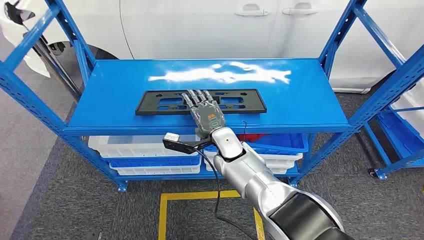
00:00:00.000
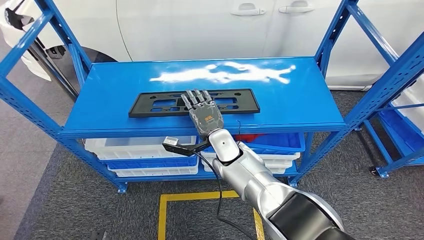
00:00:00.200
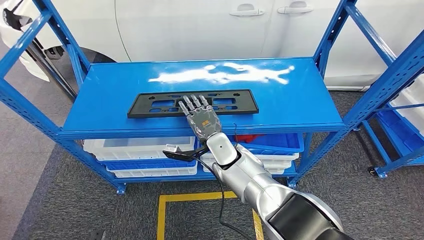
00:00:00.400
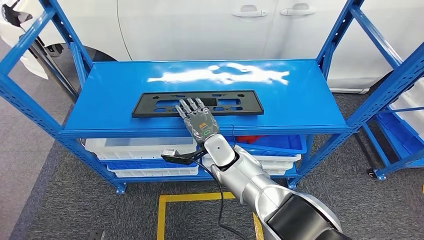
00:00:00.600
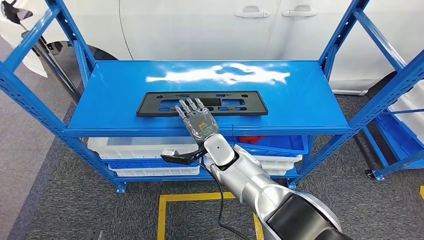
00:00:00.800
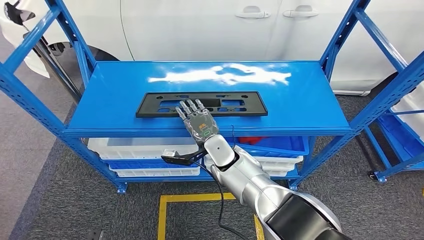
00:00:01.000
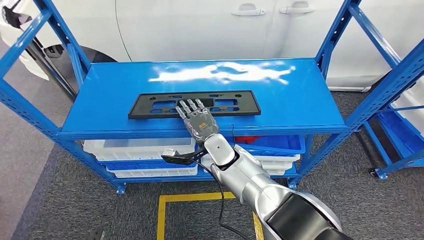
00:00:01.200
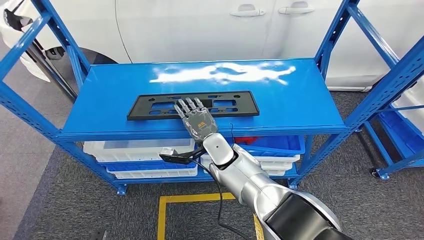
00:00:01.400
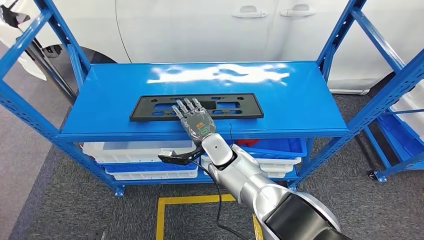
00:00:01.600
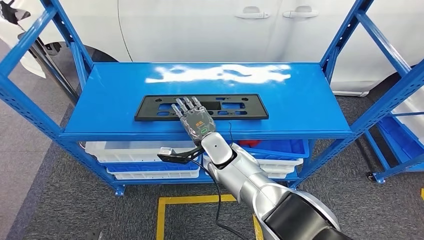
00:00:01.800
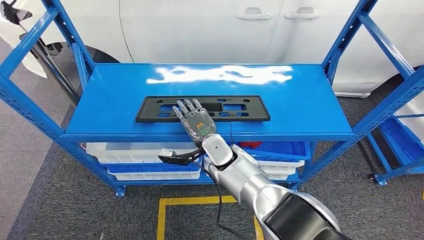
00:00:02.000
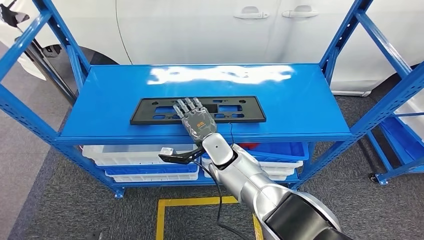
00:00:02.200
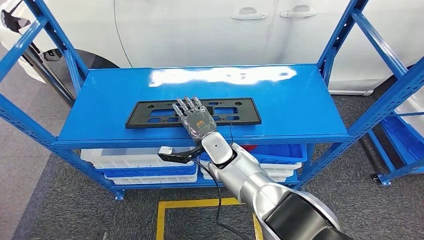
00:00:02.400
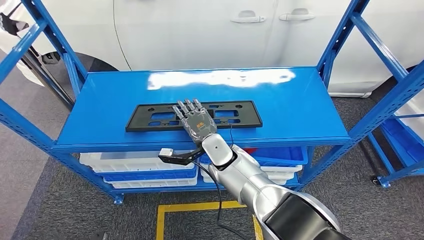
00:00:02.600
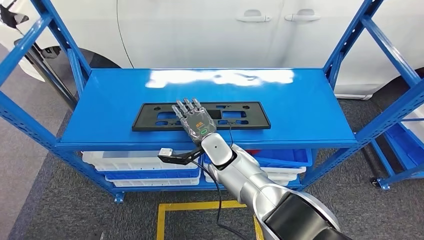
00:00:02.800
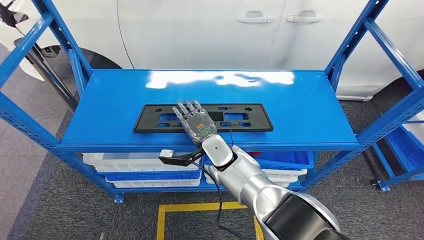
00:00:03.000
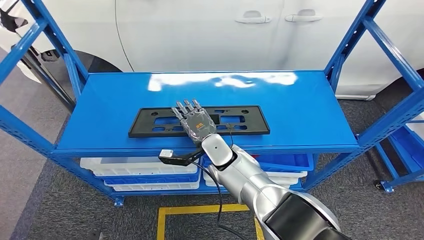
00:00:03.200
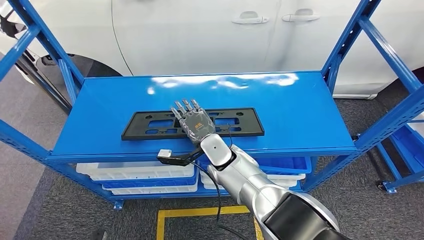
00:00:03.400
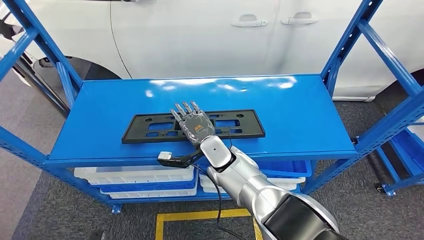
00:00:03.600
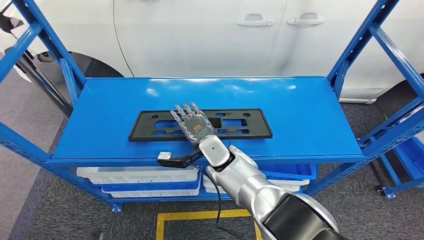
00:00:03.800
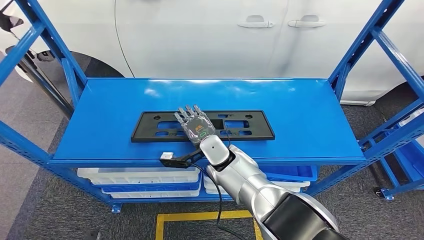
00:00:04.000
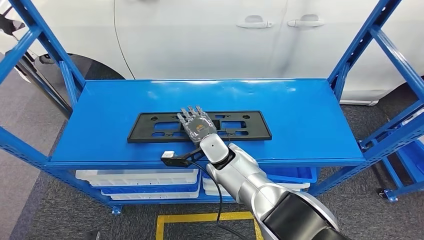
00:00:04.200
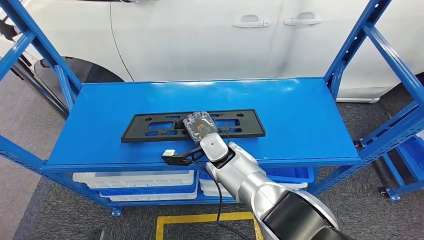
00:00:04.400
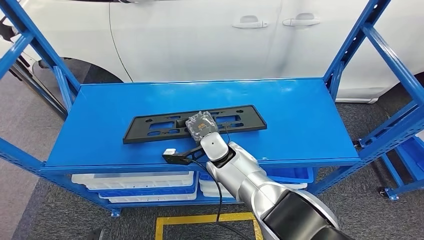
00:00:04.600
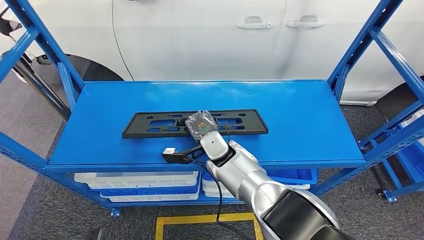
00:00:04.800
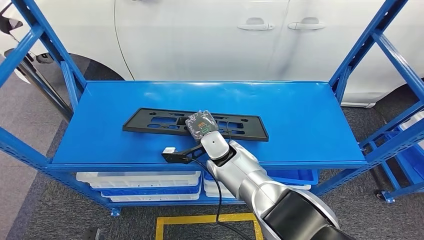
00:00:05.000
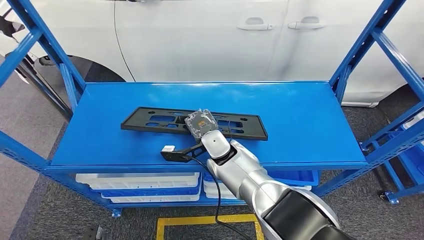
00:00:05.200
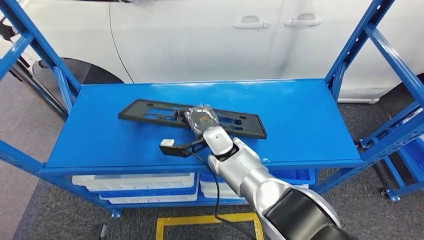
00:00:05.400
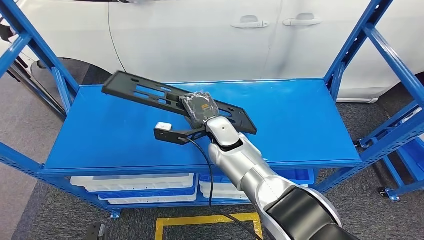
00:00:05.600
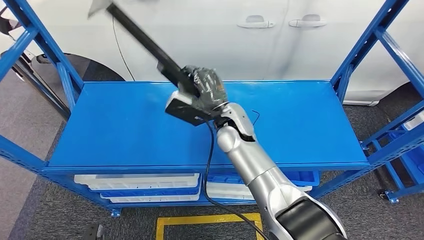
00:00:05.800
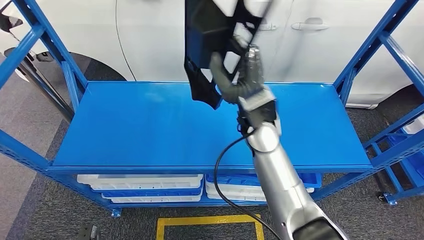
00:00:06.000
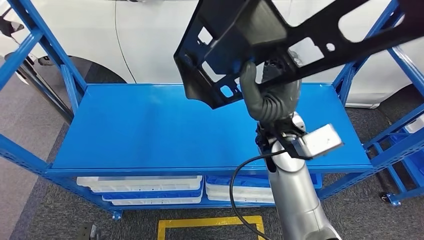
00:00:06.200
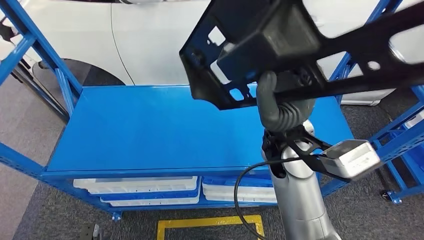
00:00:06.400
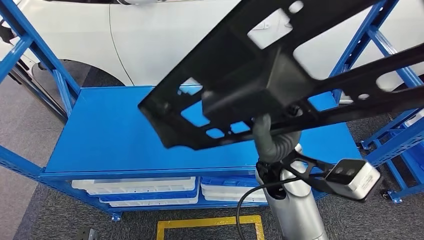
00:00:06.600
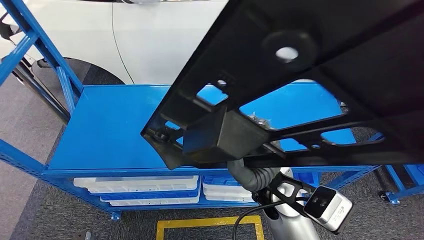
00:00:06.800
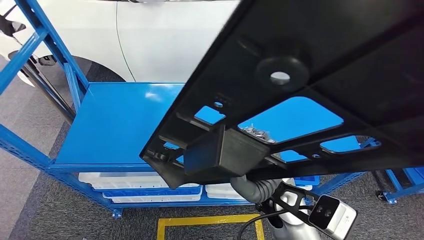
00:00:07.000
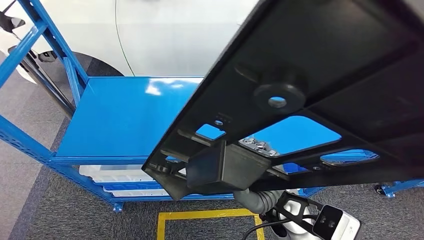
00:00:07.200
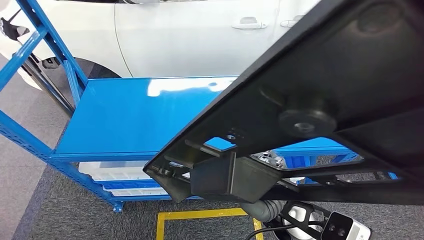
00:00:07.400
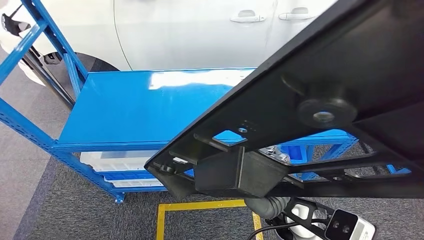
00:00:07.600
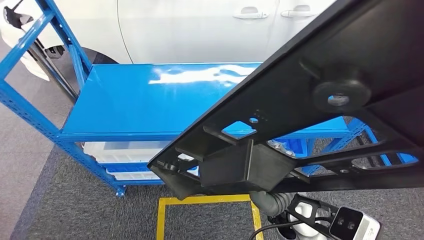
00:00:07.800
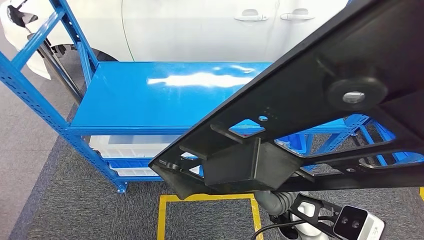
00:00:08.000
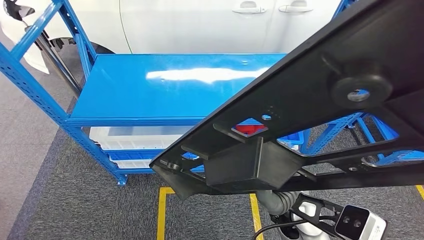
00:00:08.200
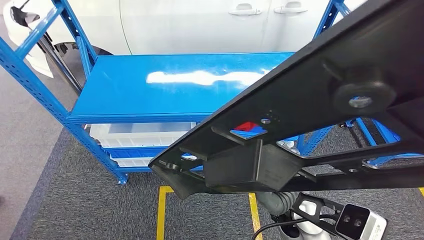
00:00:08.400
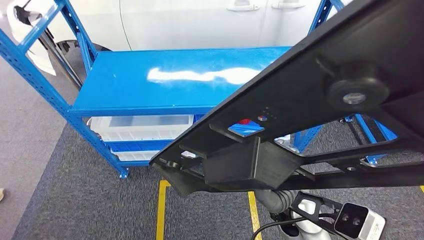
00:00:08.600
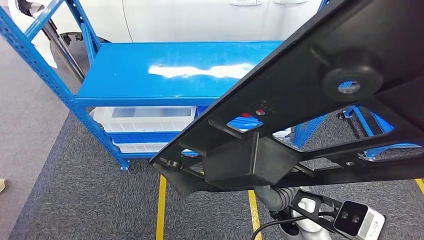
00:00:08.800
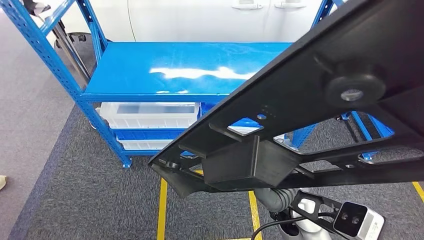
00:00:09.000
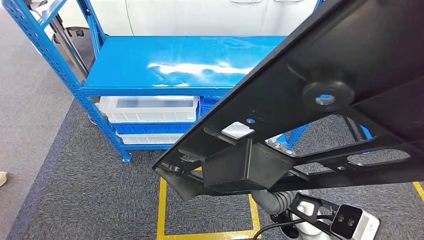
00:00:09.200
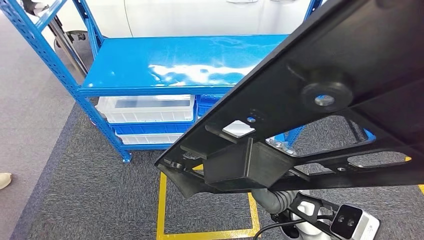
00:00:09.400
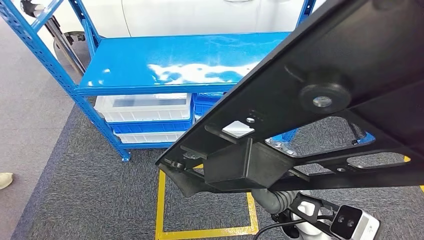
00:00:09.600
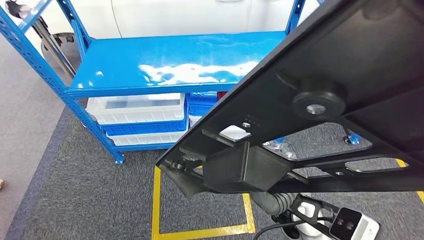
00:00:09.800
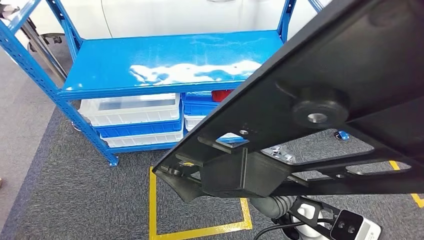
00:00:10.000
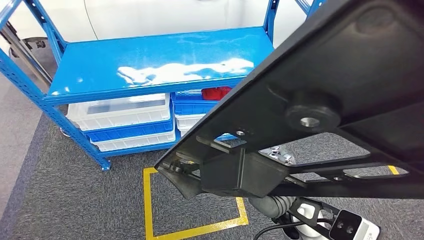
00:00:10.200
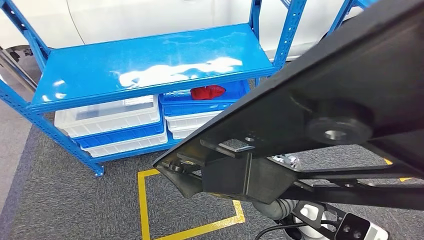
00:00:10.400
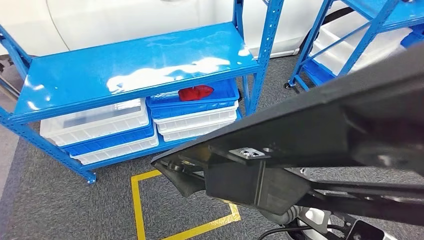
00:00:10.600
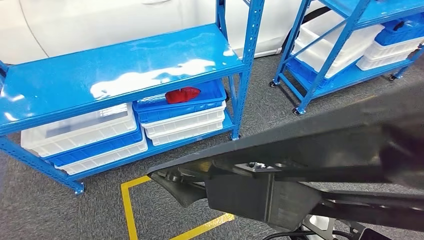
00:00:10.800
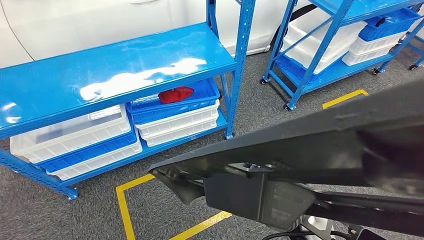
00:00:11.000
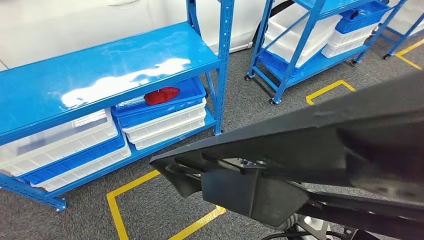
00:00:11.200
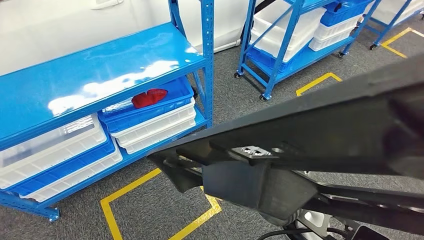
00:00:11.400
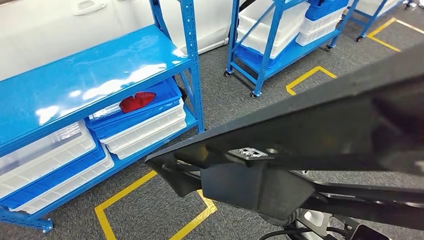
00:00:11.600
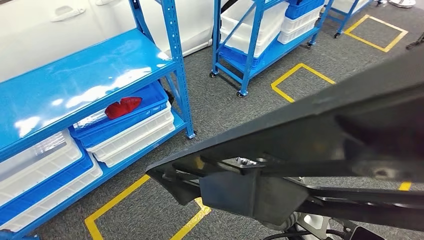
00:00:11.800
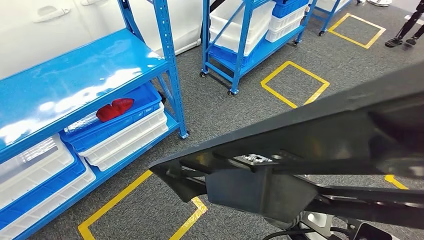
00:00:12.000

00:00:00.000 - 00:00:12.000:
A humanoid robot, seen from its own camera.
Step, 00:00:00.000 - 00:00:05.800: Pick up the large material from the shelf.

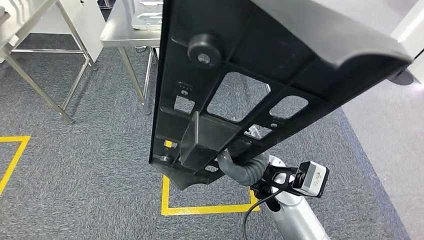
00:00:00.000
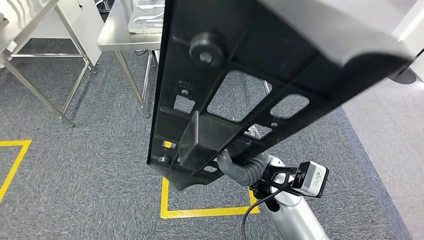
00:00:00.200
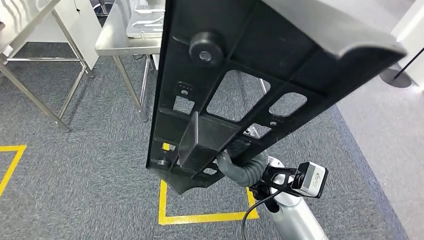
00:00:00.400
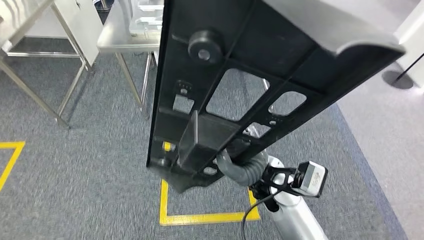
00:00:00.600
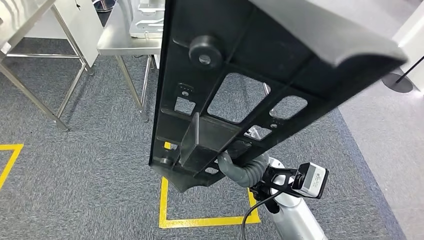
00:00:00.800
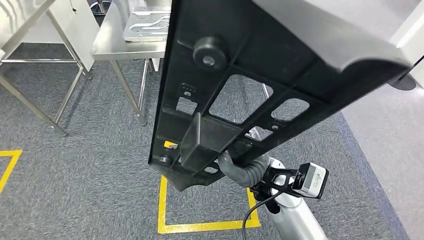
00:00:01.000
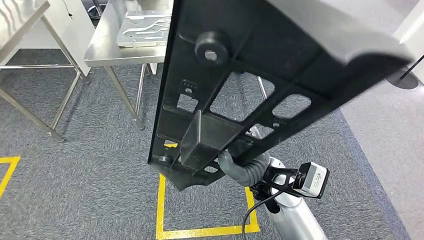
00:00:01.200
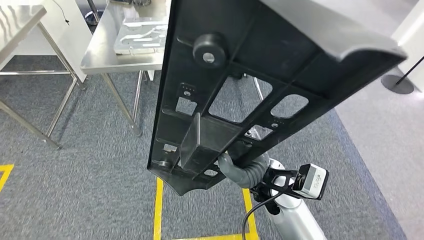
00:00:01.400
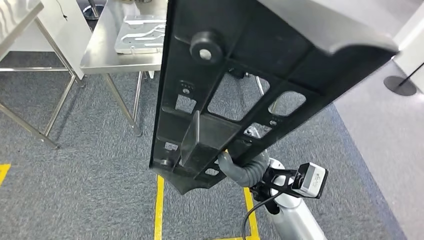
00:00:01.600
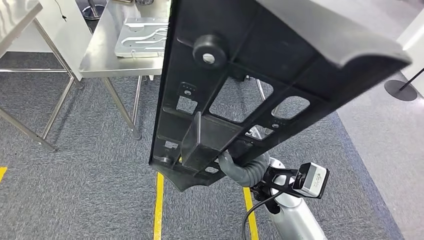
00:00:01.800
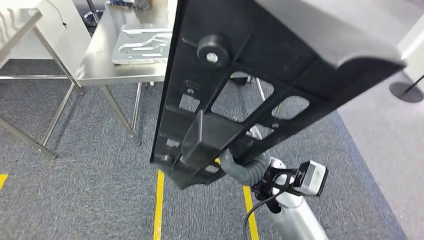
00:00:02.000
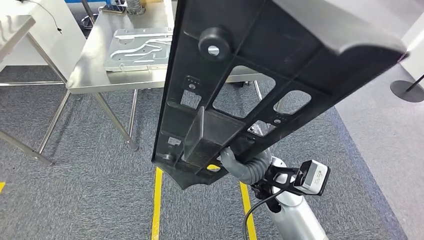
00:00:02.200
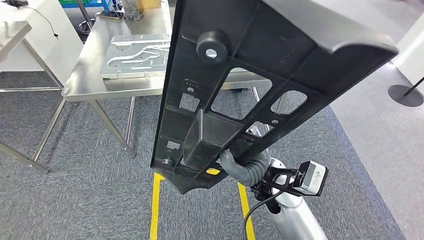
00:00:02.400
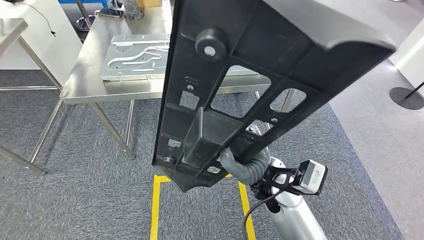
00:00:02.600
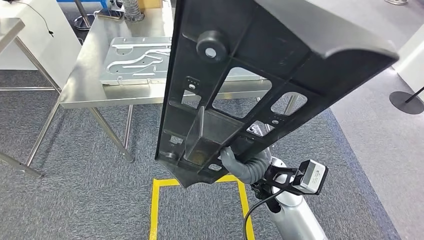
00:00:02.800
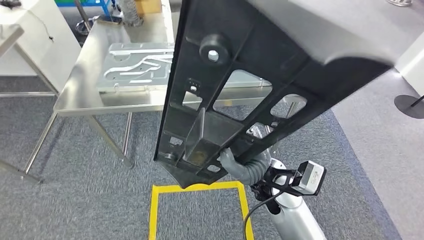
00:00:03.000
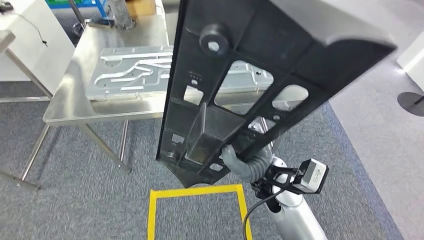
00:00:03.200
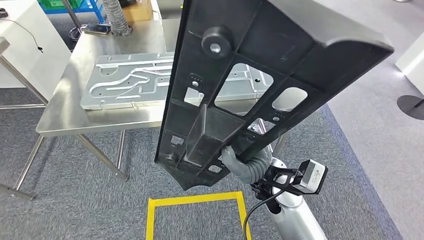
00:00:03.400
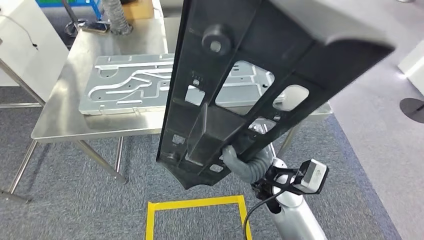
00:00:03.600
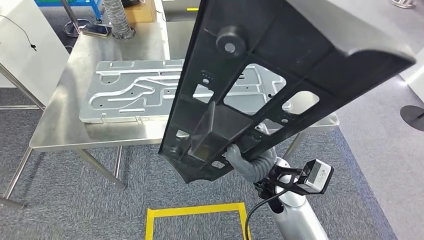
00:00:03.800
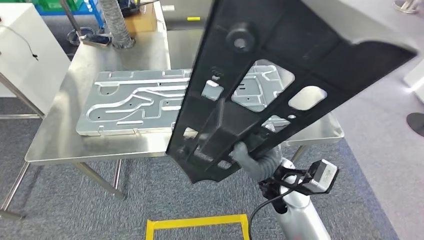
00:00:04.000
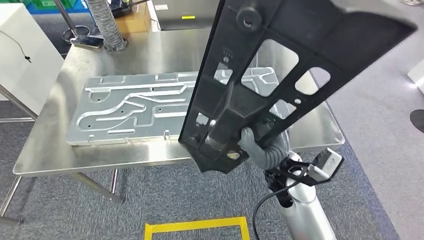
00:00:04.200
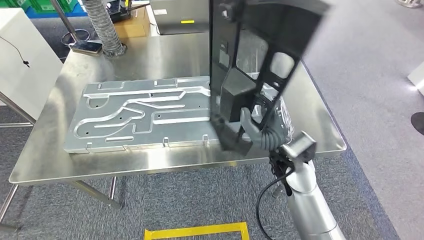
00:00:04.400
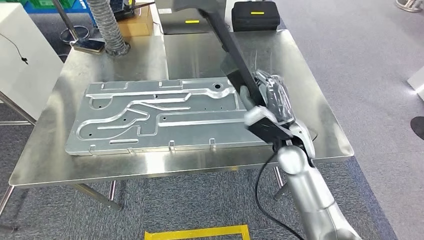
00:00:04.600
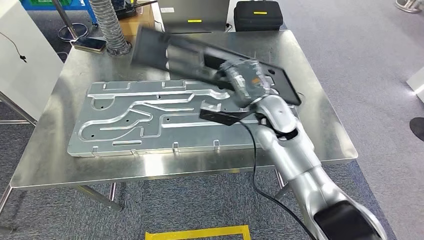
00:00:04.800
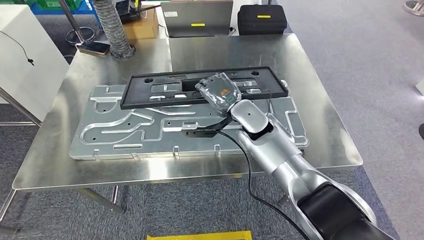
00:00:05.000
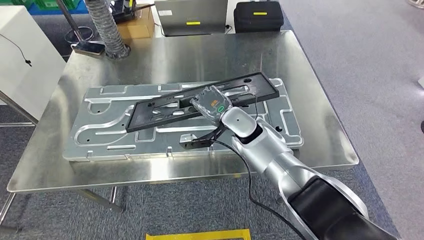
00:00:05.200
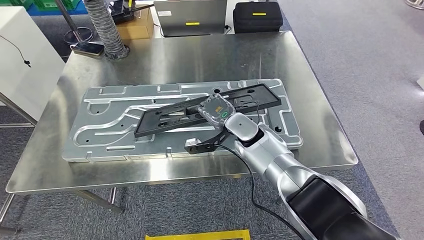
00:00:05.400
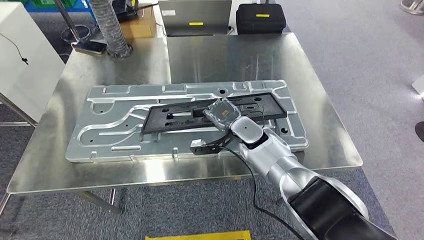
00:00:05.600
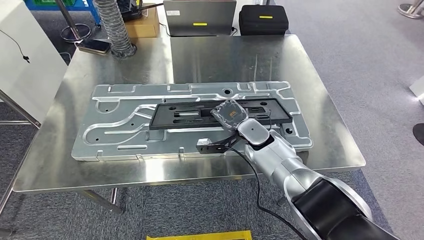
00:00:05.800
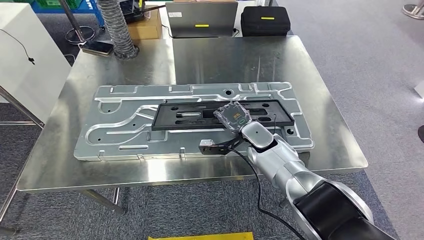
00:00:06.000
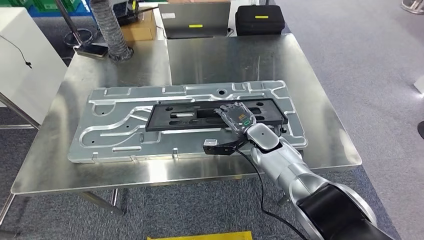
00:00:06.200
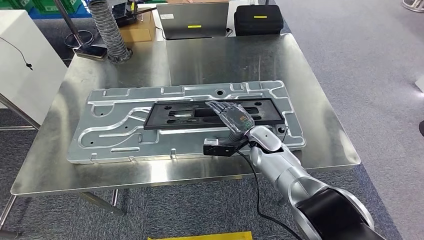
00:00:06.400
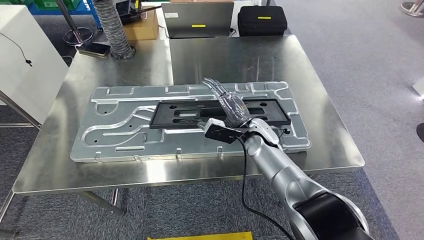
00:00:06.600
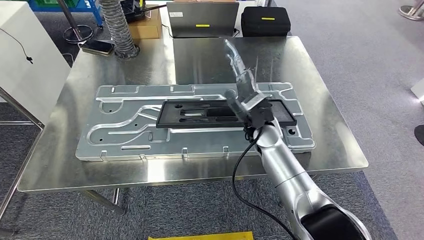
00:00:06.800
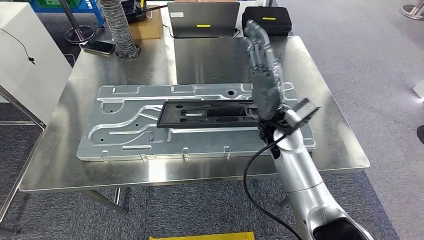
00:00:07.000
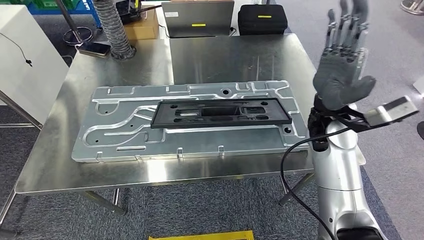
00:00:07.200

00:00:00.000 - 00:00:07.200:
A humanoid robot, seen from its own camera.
Step, 00:00:00.000 - 00:00:04.600: Move the large material to the front of the workbench.
